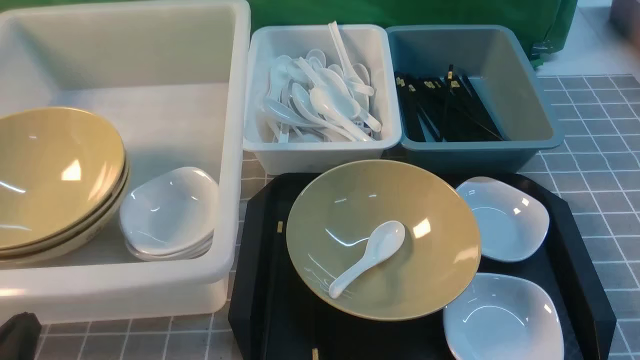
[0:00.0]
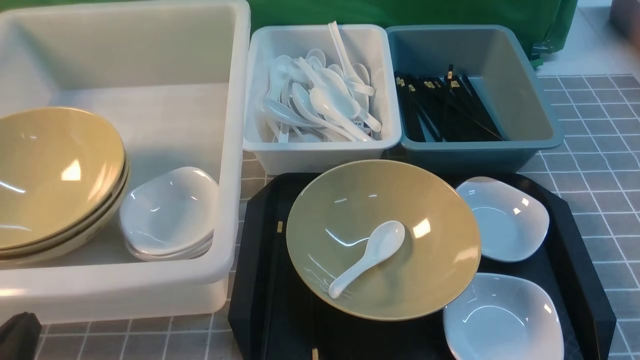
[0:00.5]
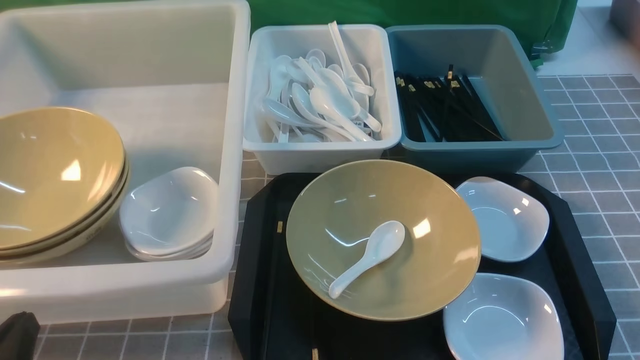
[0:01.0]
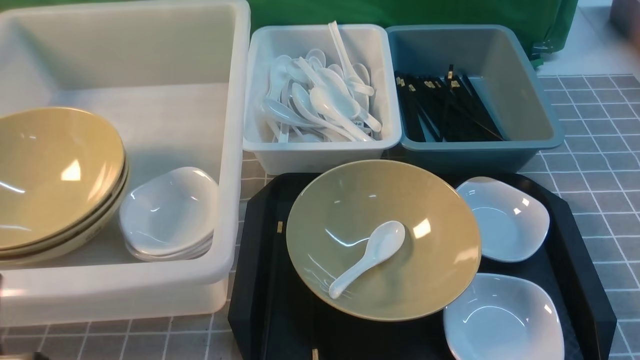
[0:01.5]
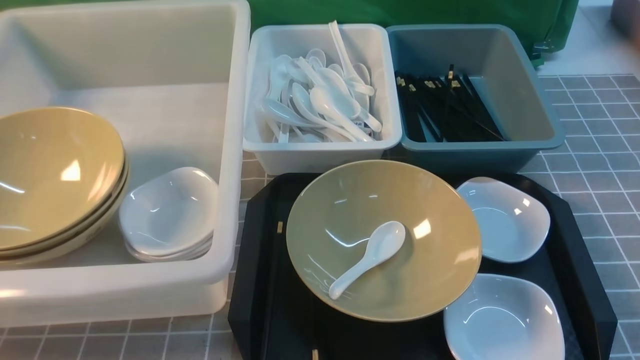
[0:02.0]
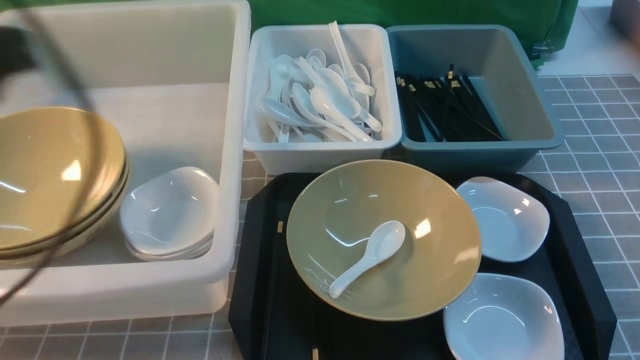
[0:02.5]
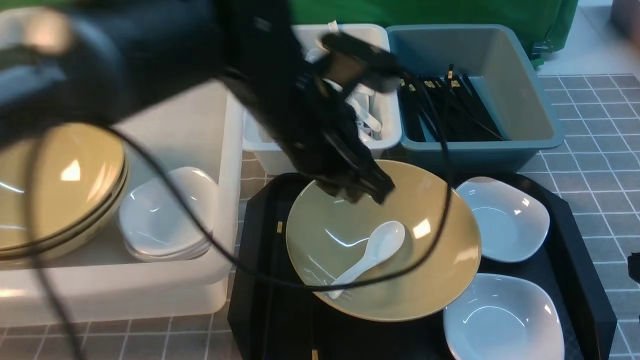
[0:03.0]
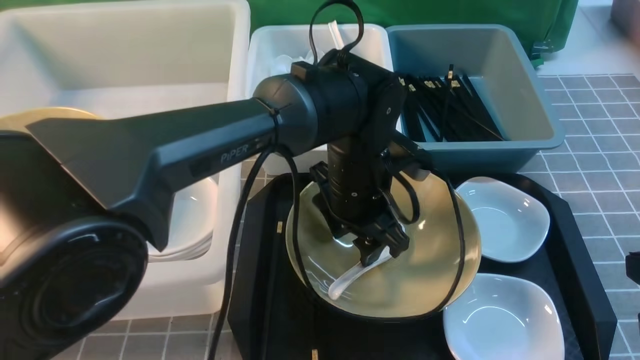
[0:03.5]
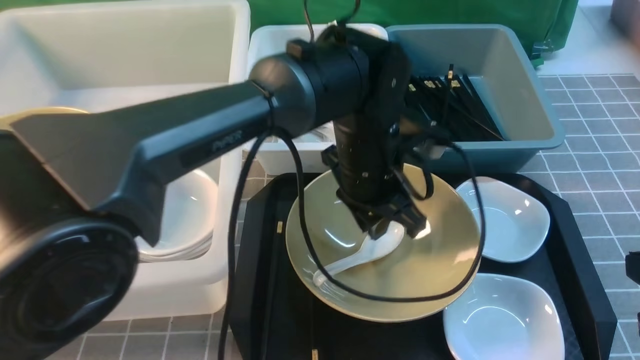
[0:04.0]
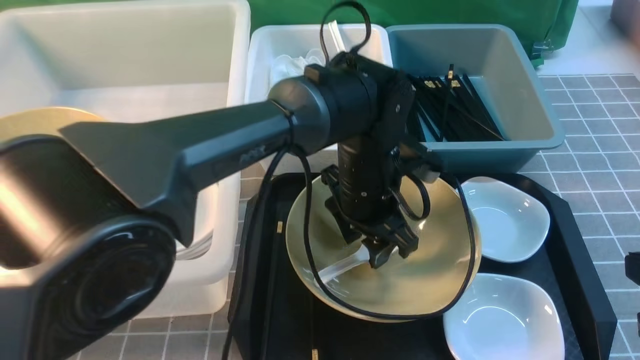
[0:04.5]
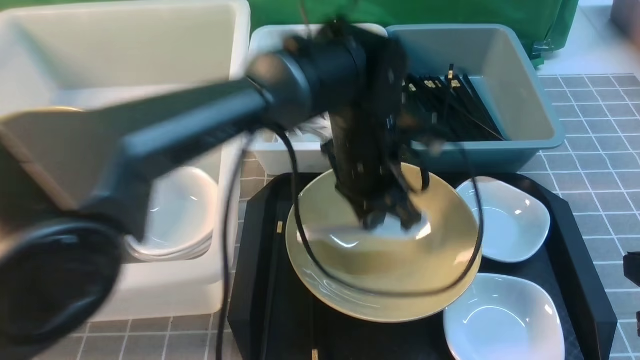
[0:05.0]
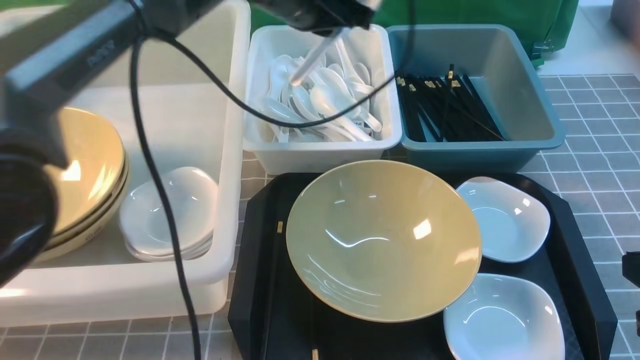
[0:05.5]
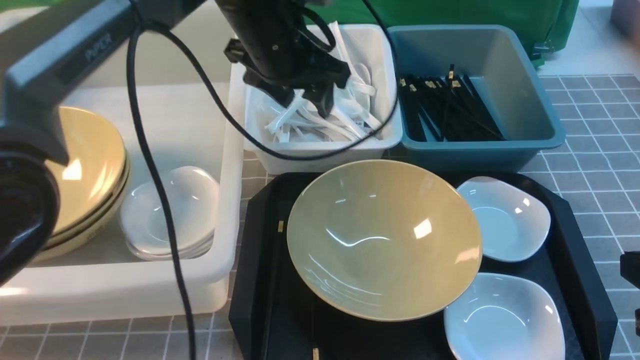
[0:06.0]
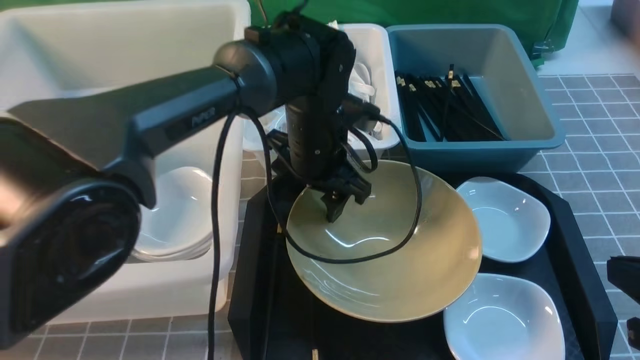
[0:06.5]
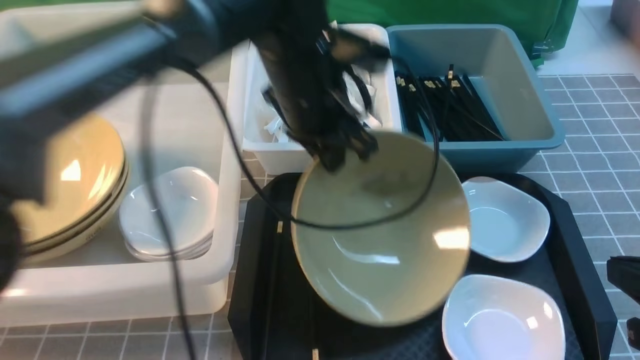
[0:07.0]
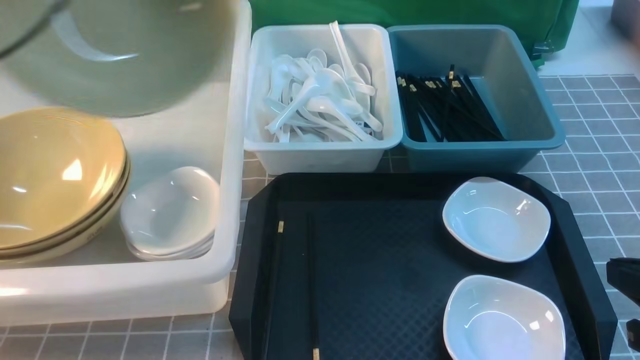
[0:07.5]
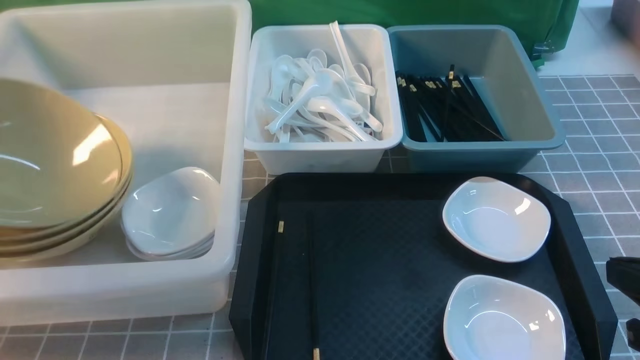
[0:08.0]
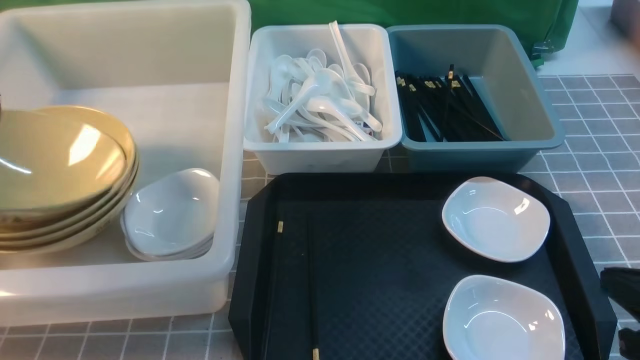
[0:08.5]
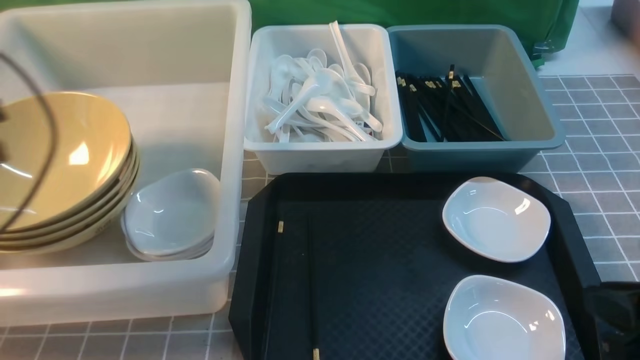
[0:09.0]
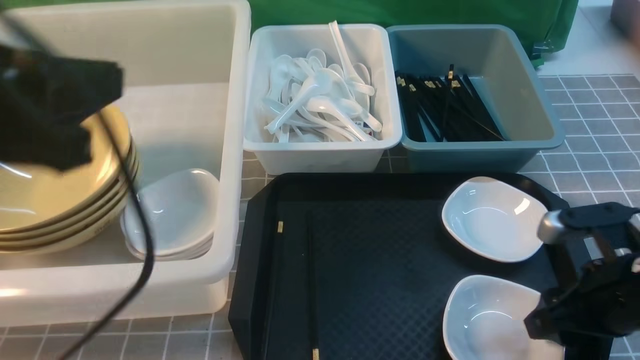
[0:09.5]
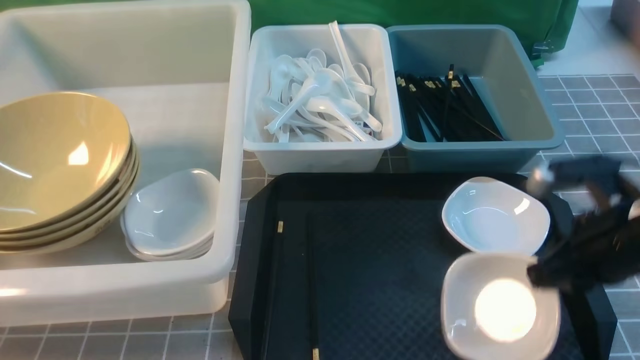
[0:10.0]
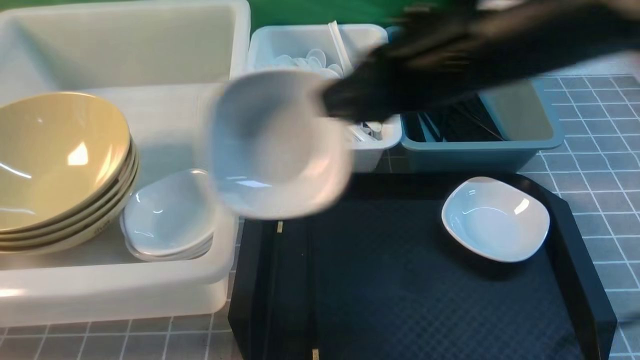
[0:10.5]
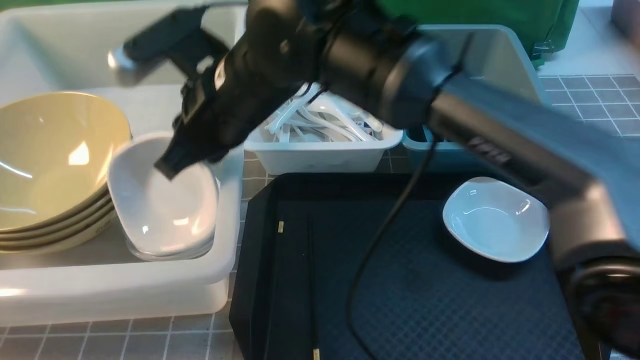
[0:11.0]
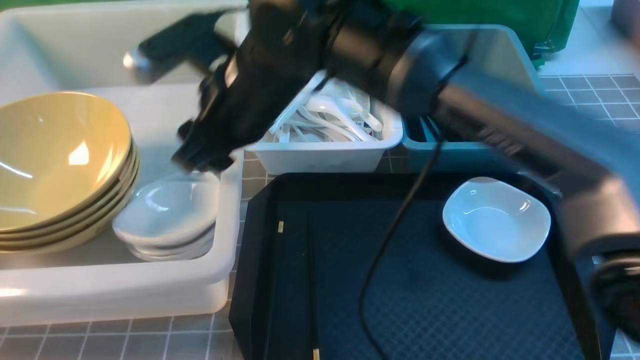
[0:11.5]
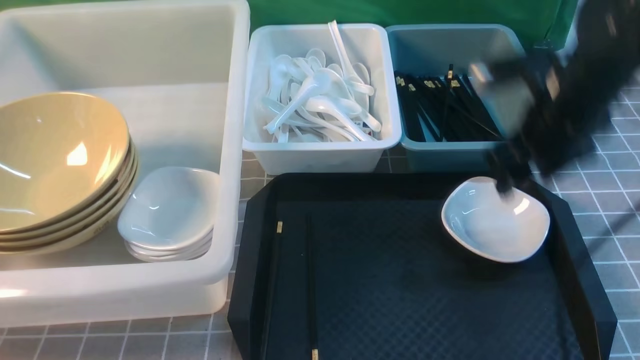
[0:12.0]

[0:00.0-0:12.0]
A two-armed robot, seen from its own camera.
Task of the whole recording: on grey table put chopsticks spoon bowls plates into blue grey white boxes.
Step, 0:00.0 to 0:05.0: use the left arm to grab the soup spoon in the middle.
Step, 0:05.5 to 0:06.0: use the left arm to put the soup spoon into the small storage box in the middle.
Step, 0:06.5 to 0:07.0: use the left arm to grab the yellow noodle bowl on the left.
Step, 0:07.5 to 0:08.5: use the left arm to put the noodle bowl into the large storage box on the left.
Step, 0:09.0 to 0:10.0: use the right arm to grab the plate.
Step, 0:10.5 to 0:11.5: use the right arm to put the plate into the large storage box on the left.
0:00.0 to 0:02.0: The left gripper shifts roughly 15 cm upward.
0:02.0 to 0:04.0: The left gripper goes approximately 40 cm to the right and forward, and opens up, while the right gripper is displaced forward by roughly 5 cm.
0:04.0 to 0:06.0: The left gripper is displaced forward, to the left and upward by some 15 cm, and opens.
0:06.0 to 0:08.0: The left gripper goes about 40 cm to the left and backward, and closes up.
0:08.0 to 0:10.0: The right gripper travels forward by roughly 10 cm, and opens, then closes once more. Meanwhile the left gripper is displaced backward and to the right by approximately 25 cm, and closes.
0:10.0 to 0:12.0: The right gripper is displaced forward by about 10 cm, goes to the left and returns, roughly 30 cm each way, and opens.

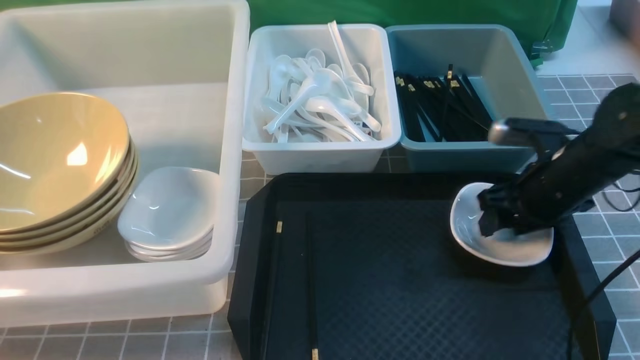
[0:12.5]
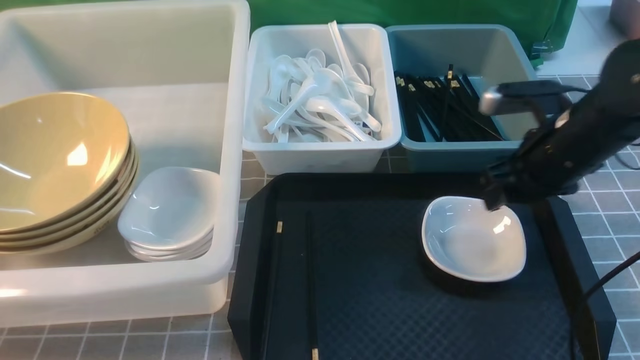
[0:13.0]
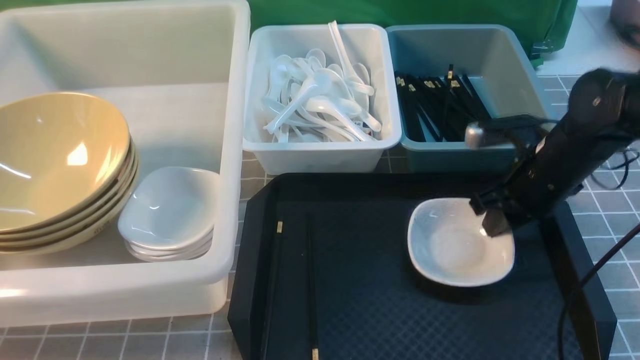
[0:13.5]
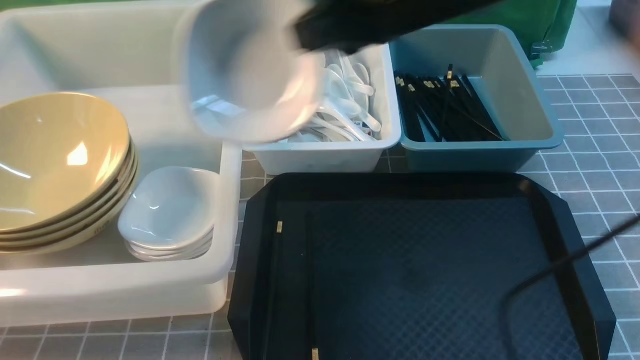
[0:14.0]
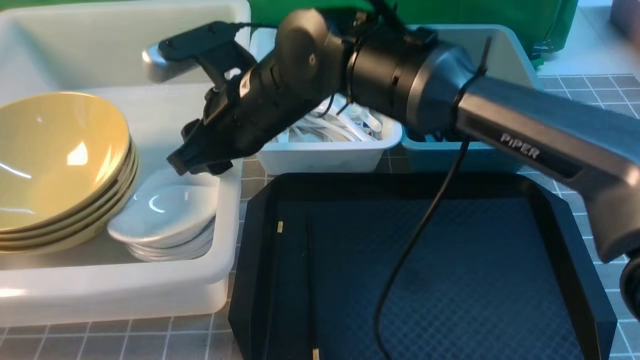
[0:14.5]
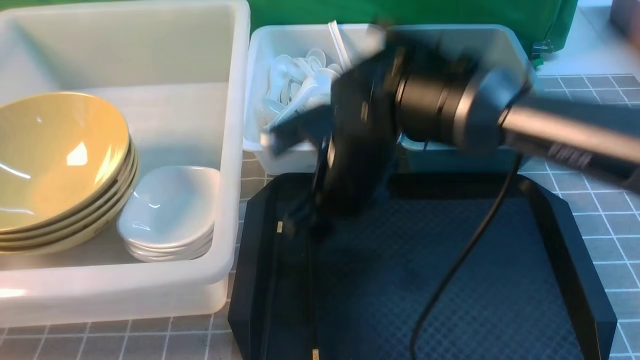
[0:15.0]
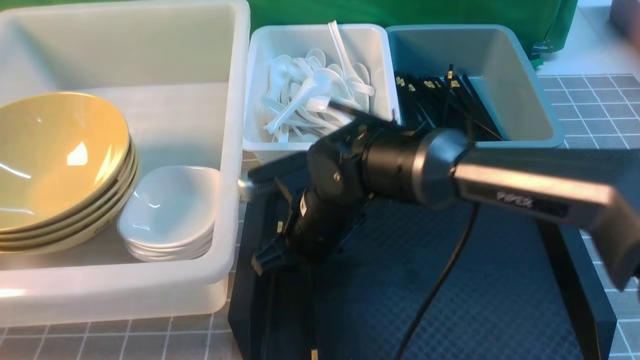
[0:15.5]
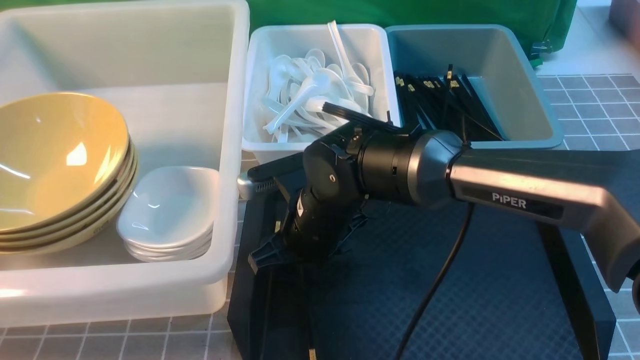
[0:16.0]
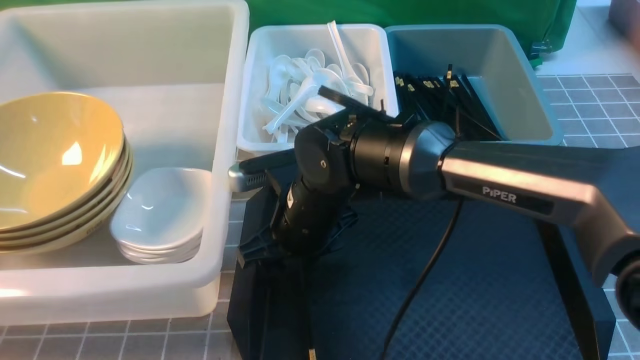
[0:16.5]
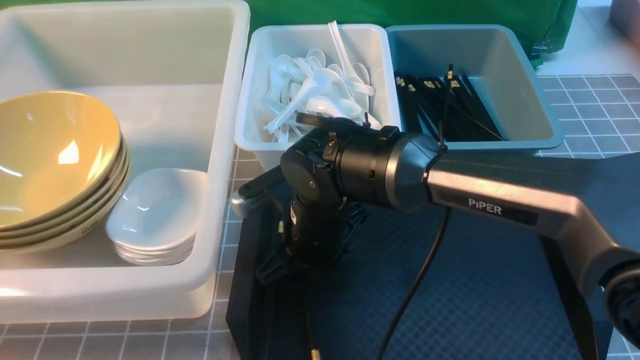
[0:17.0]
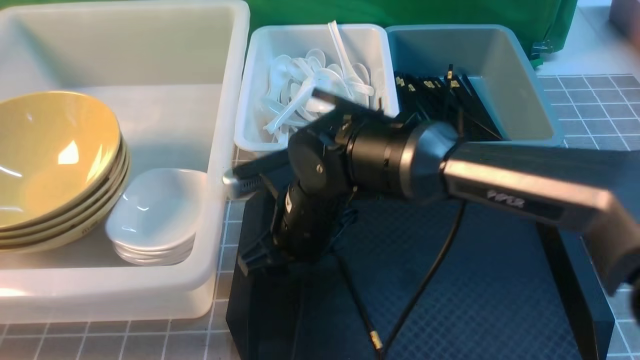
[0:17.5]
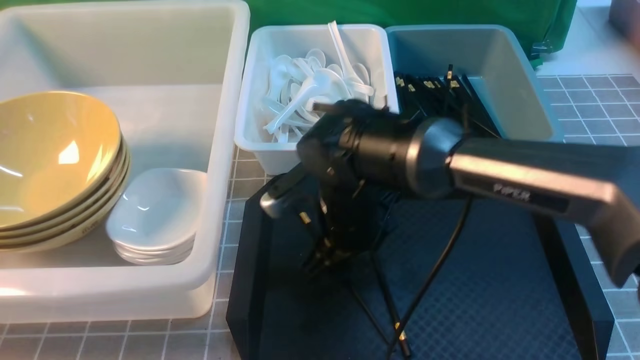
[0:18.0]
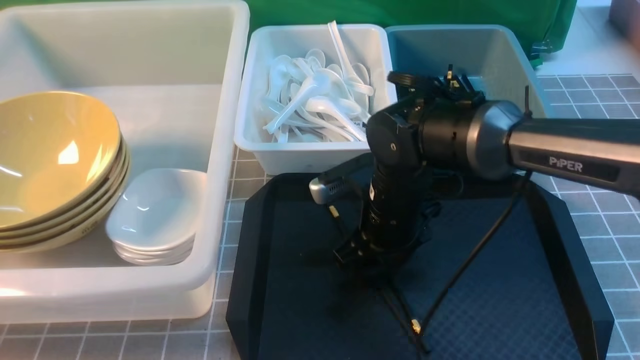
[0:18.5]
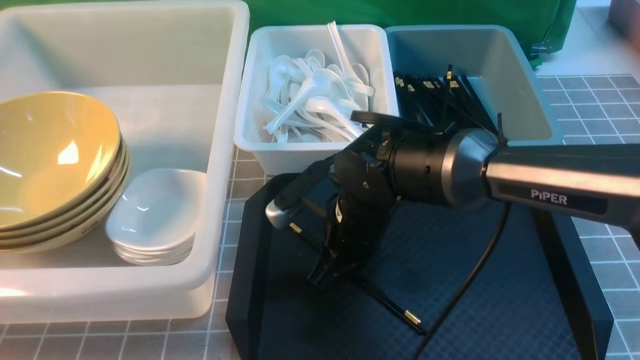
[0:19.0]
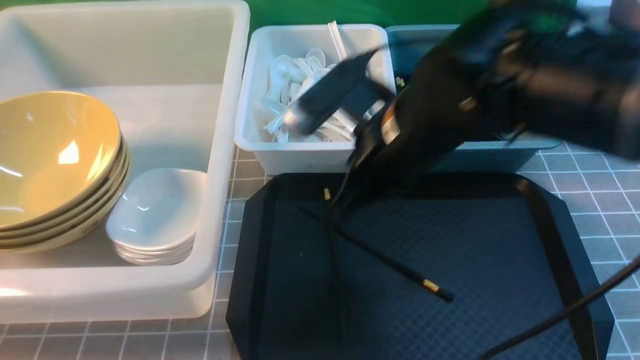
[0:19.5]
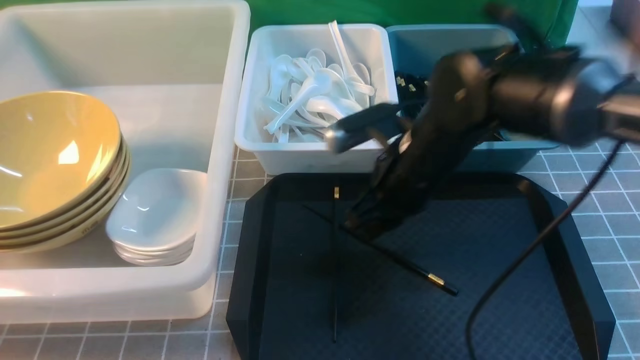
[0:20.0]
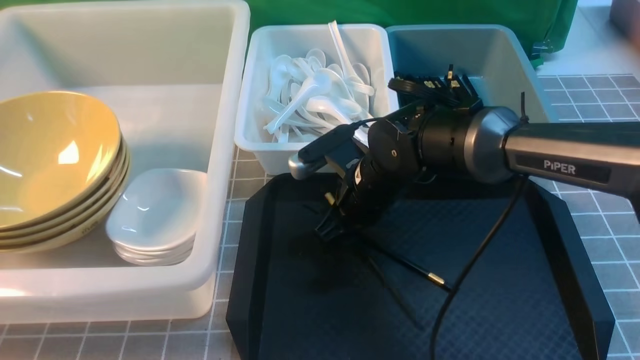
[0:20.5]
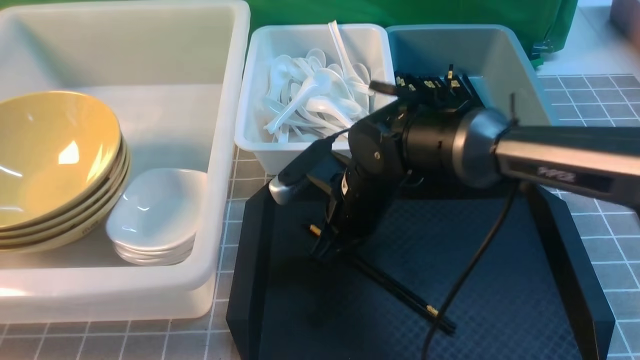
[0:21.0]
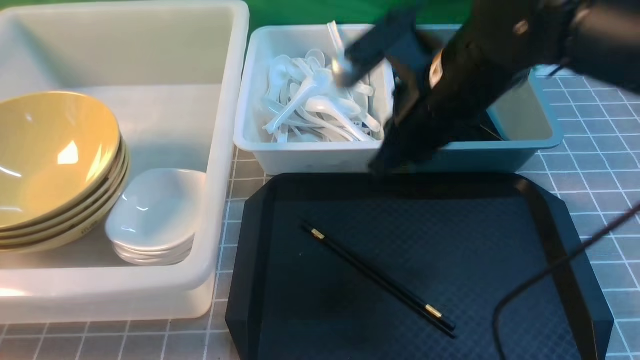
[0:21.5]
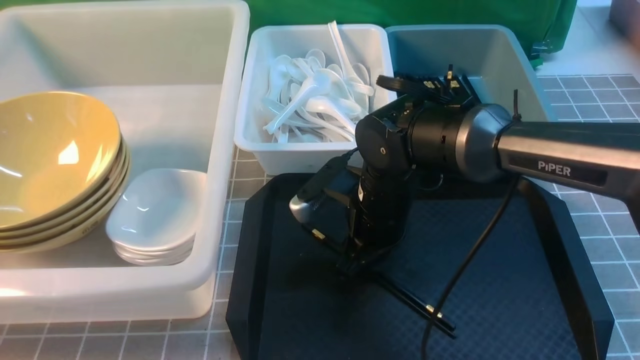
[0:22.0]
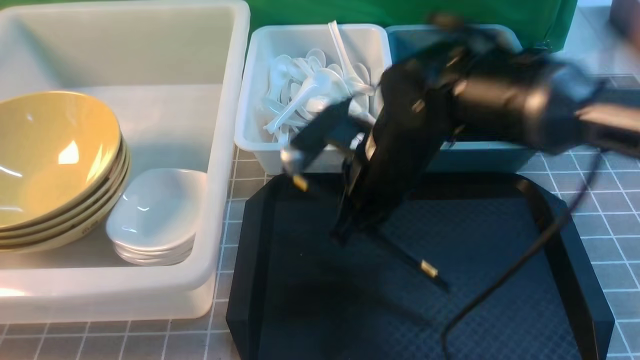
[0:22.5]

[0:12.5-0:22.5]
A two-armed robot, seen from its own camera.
Task of the whole recording: on grey table put chopsticks spoon bowls plates into blue grey white boxes.
Step, 0:14.0 to 0:14.5: use the right arm to put the plate into the large storage box on the left.
Step, 0:15.0 to 0:22.5: use the right arm to grab the chopsticks.
0:12.5 to 0:14.5: The right gripper goes approximately 30 cm to the left and upward, and closes and opens again.
0:14.5 to 0:16.5: The right gripper moves downward, approximately 15 cm.
0:16.5 to 0:18.5: The right gripper goes some 10 cm to the right.
0:18.5 to 0:20.5: The right gripper reaches approximately 10 cm upward, then returns, and closes and opens again.
0:20.5 to 0:22.5: The right gripper goes up and down, approximately 10 cm each way, reversing 2 times, and closes its fingers.
